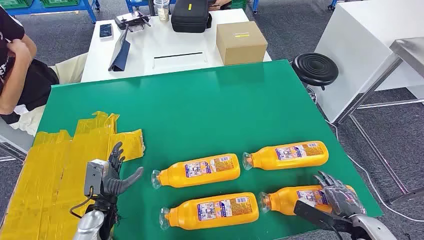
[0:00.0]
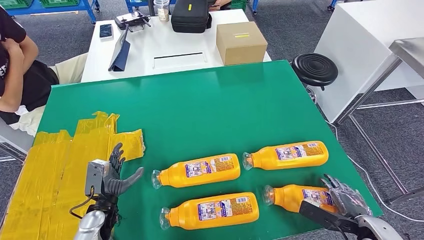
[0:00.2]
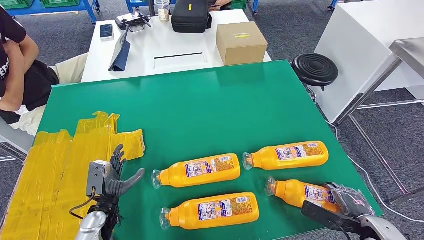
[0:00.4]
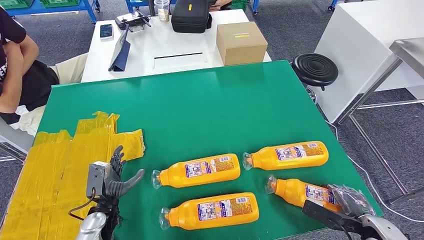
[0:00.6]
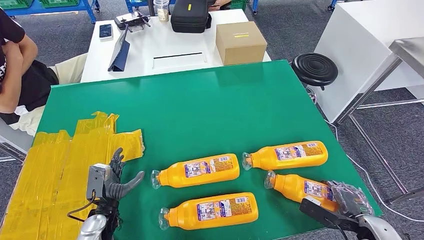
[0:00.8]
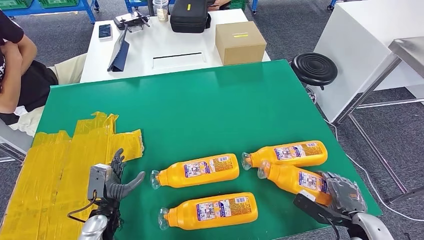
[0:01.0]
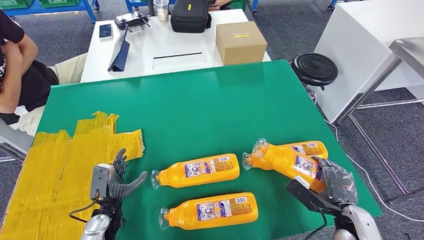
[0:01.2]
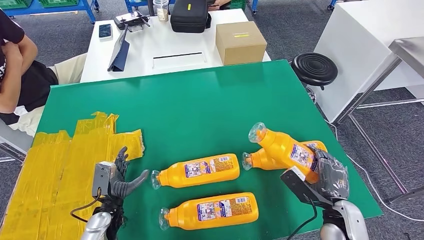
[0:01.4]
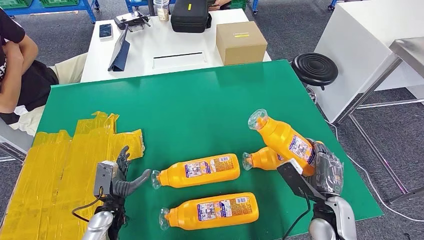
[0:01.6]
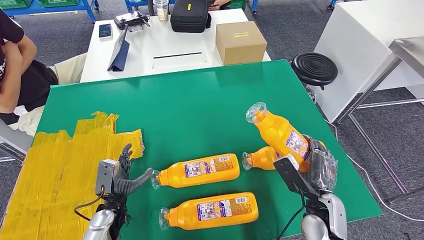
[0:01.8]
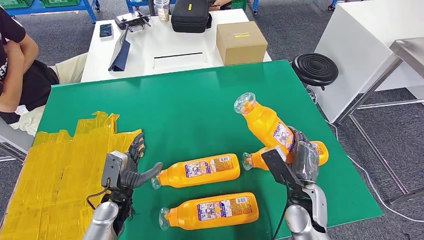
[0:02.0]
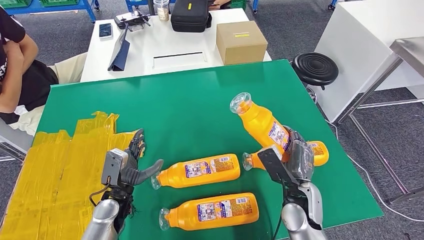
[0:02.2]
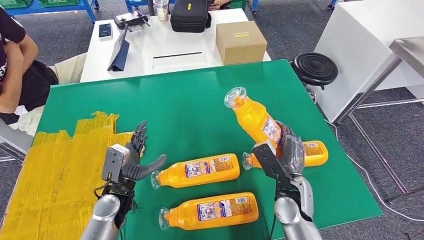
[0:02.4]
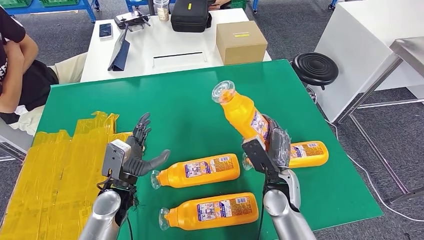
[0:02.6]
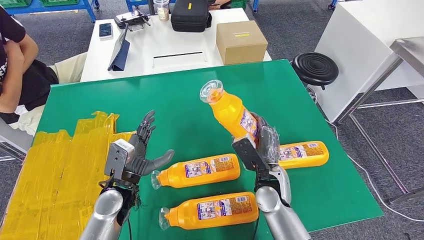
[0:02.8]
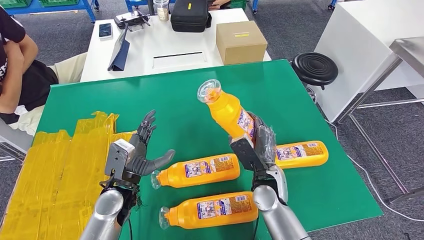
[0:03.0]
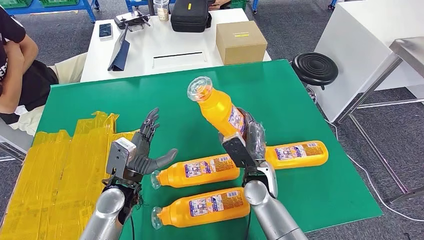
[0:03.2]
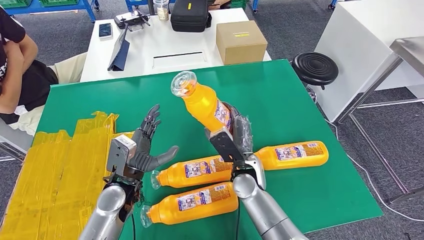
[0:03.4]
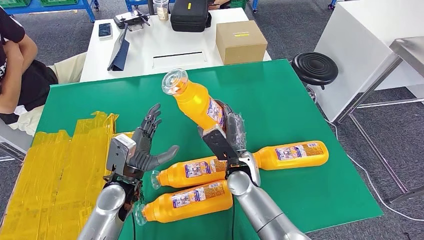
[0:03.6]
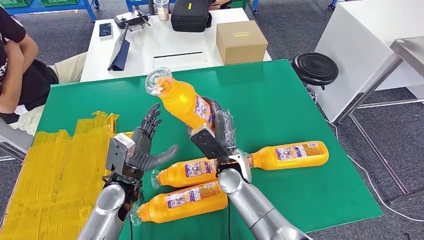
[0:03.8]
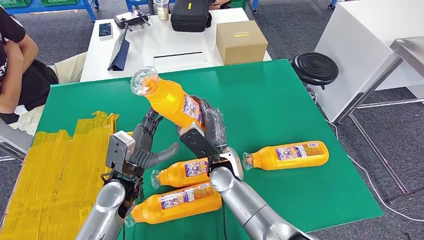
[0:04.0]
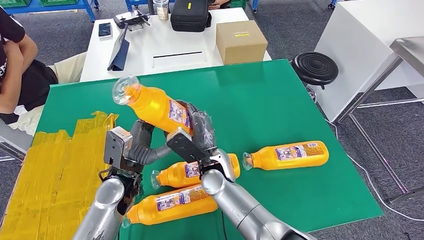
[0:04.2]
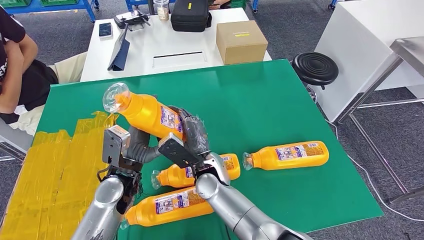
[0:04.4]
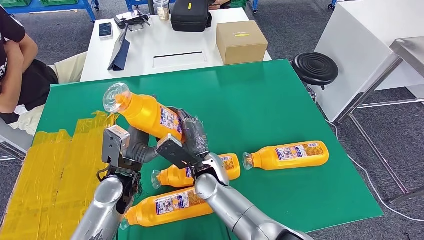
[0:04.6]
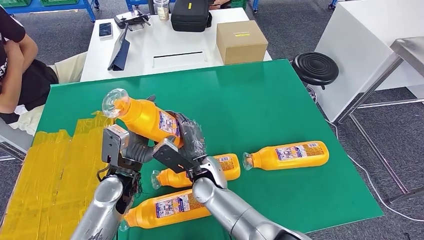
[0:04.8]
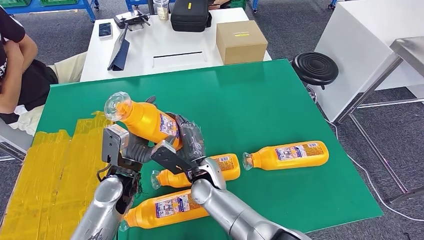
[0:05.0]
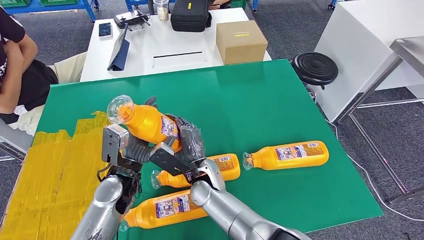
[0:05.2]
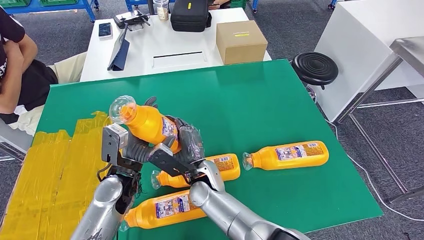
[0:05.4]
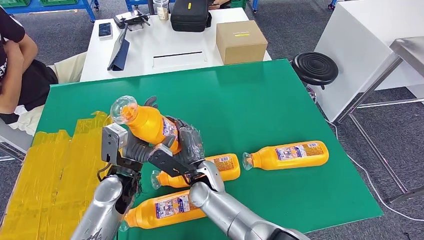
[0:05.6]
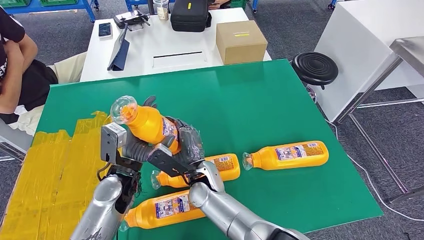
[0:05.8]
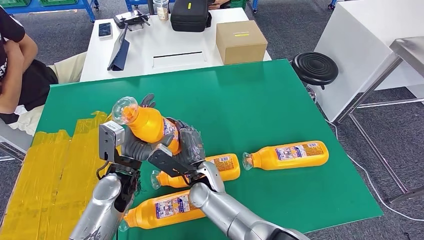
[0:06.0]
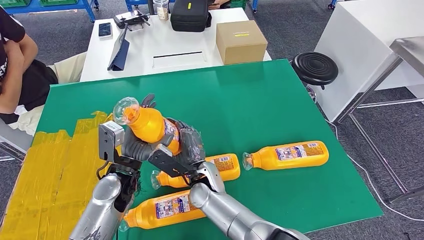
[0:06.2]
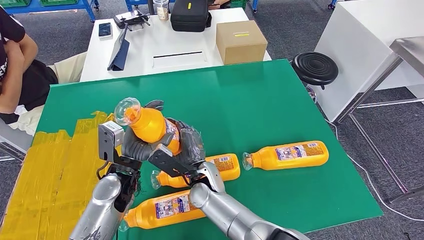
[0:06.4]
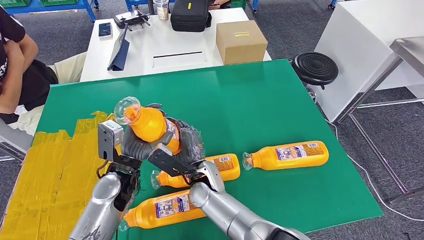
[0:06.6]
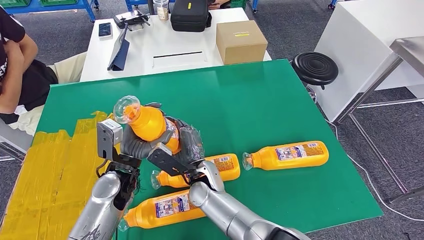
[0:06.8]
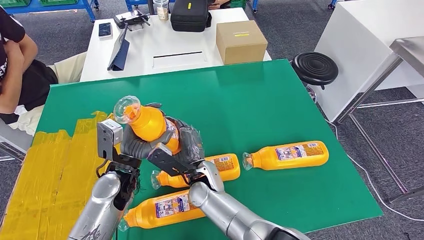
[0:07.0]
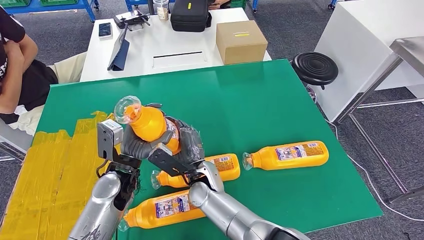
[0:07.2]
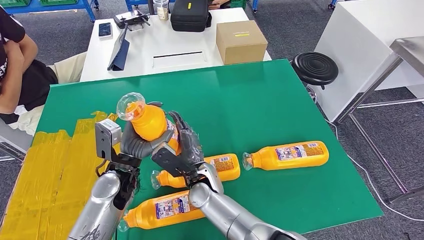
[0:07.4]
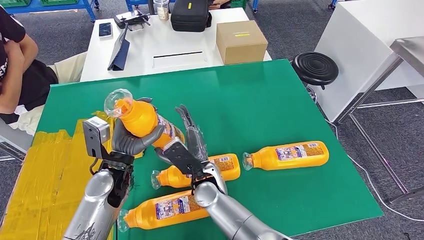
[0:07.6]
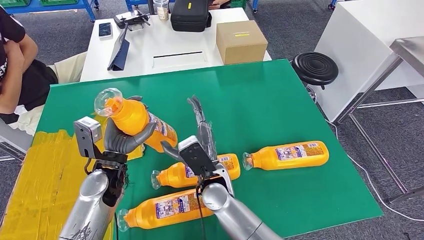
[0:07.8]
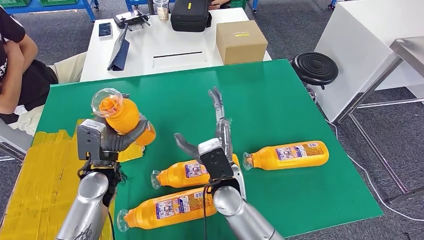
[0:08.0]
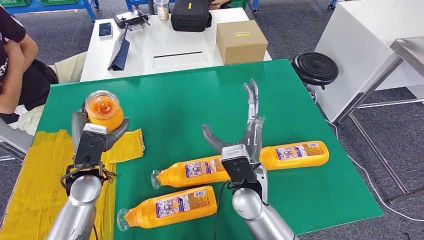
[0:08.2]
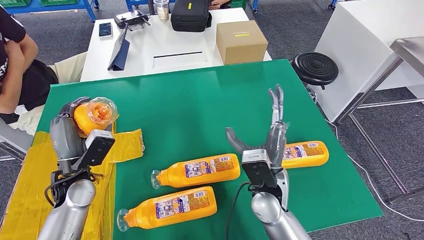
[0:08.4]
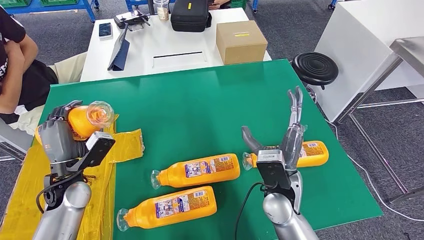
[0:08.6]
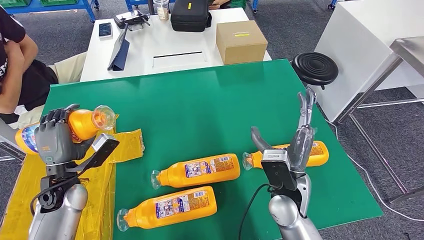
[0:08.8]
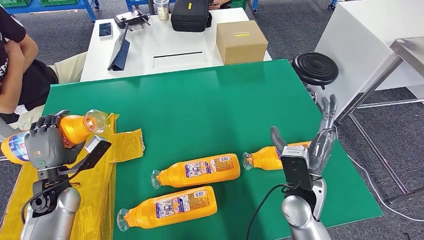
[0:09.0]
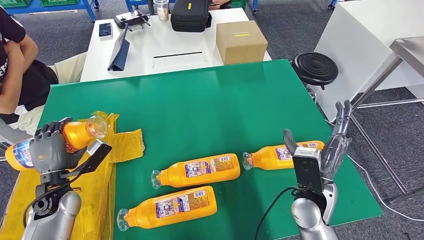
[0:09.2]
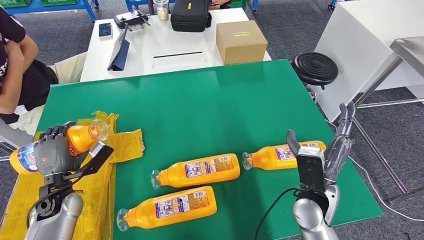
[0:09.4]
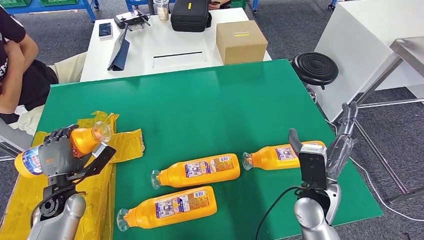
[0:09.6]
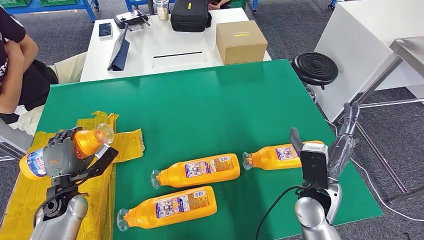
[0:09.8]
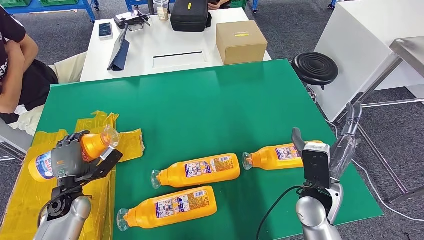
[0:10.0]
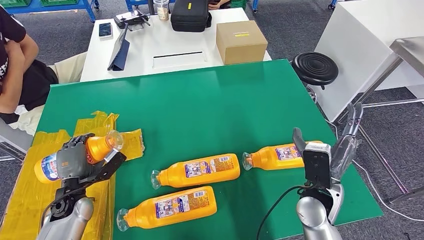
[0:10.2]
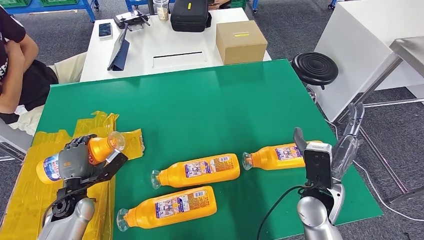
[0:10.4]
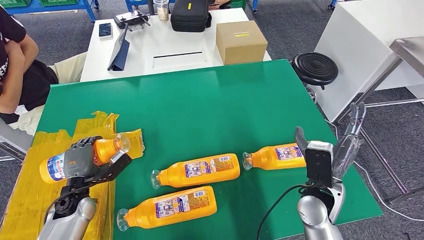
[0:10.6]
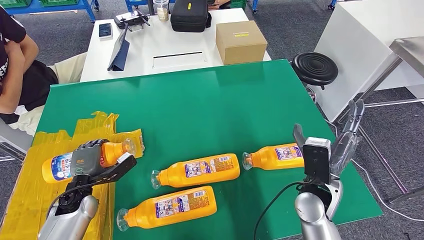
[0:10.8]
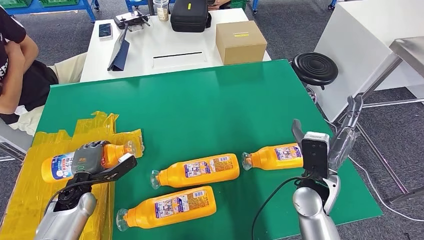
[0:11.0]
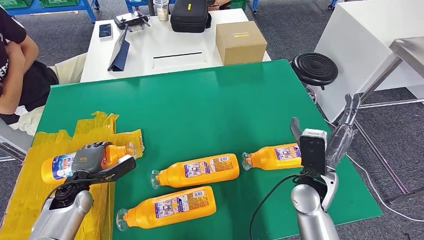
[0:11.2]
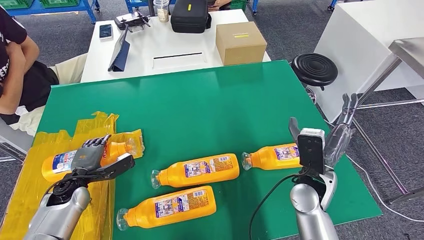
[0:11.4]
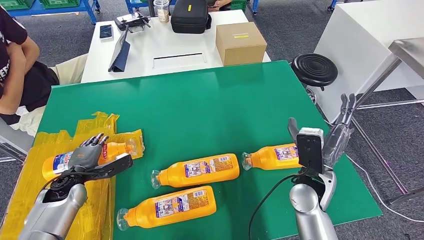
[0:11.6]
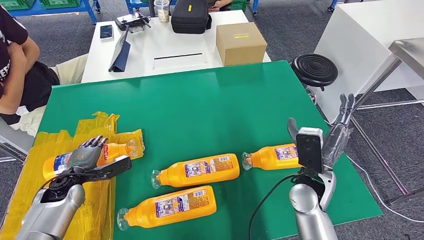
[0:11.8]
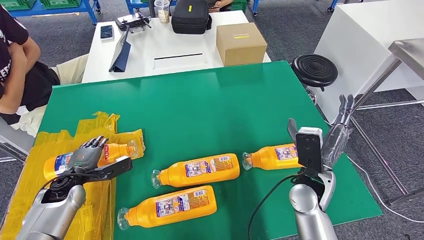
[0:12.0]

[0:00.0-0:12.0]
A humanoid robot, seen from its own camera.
Step, 0:00.0 to 0:06.8: Take the fast-moving consumer goods bottle from the table.
0:01.6 to 0:03.0: The right hand moves to the left and forward, roughly 15 cm, while the left hand is displaced upward and to the right by roughly 10 cm.
0:03.0 to 0:04.4: The right hand moves to the left, approximately 15 cm.
0:04.4 to 0:07.6: The hands move only a little.
0:09.0 to 0:10.4: The left hand moves downward, about 5 cm.

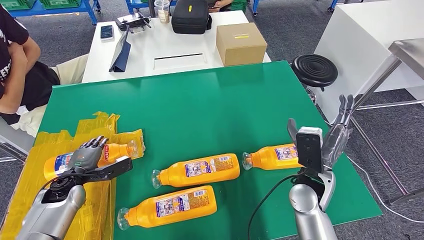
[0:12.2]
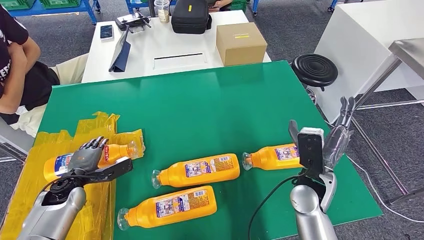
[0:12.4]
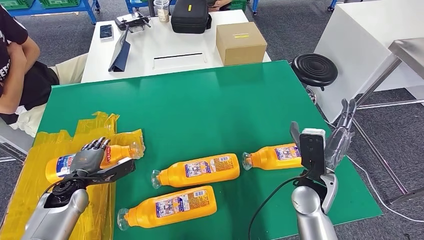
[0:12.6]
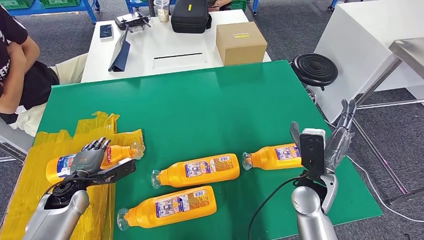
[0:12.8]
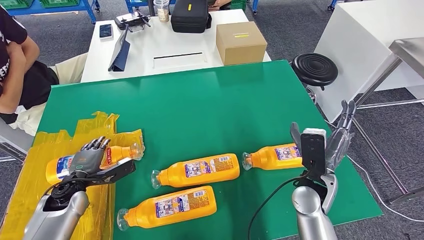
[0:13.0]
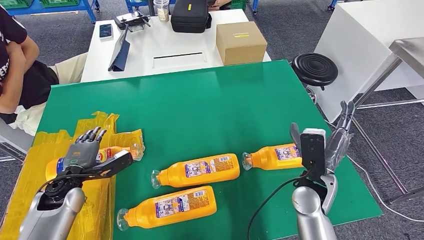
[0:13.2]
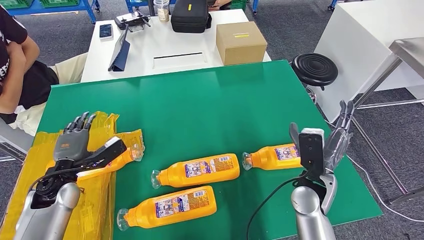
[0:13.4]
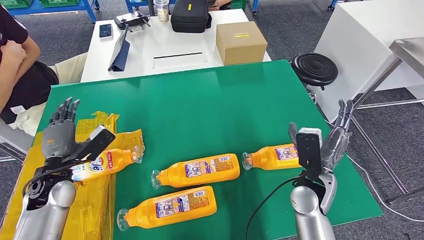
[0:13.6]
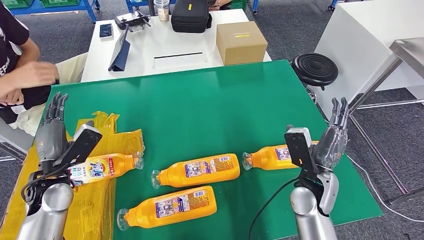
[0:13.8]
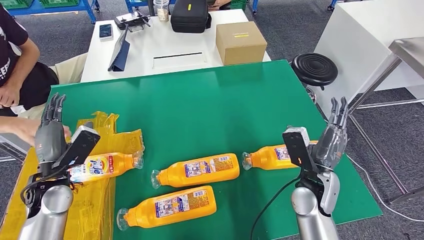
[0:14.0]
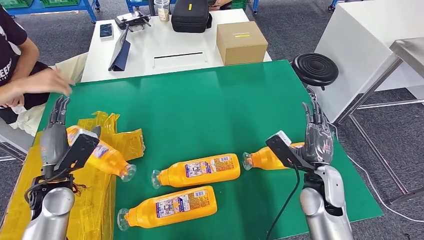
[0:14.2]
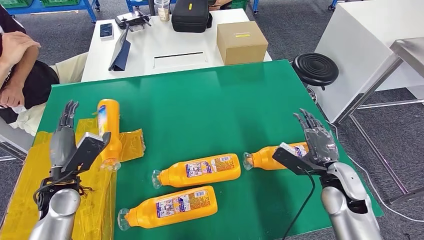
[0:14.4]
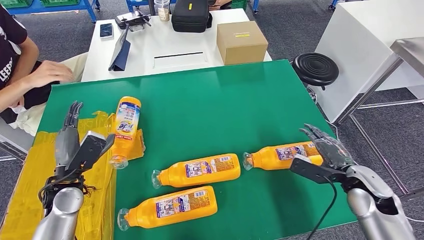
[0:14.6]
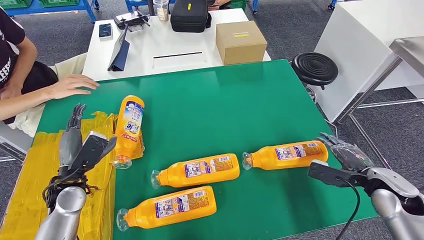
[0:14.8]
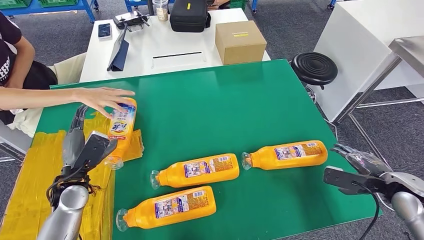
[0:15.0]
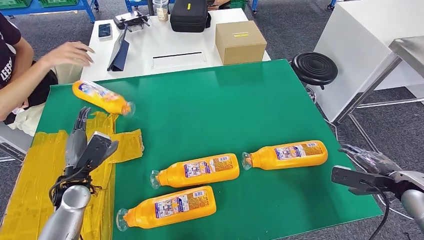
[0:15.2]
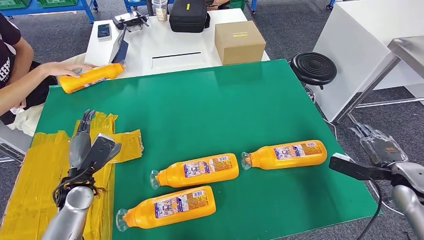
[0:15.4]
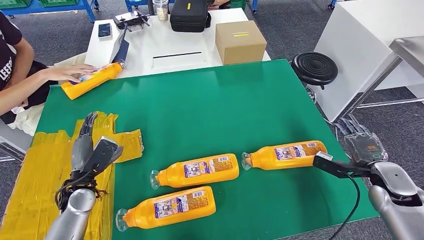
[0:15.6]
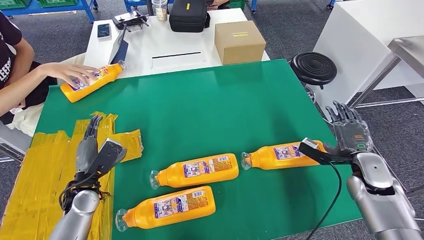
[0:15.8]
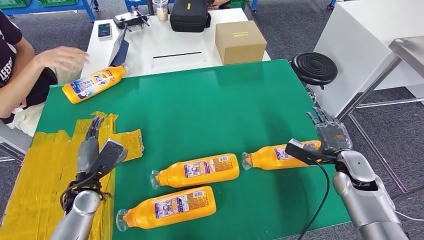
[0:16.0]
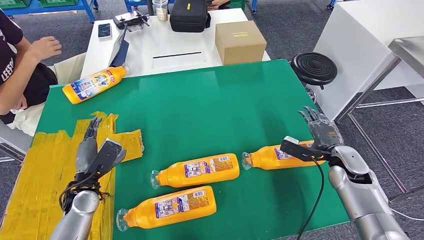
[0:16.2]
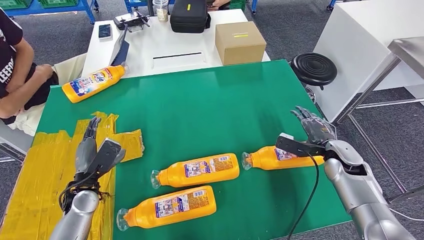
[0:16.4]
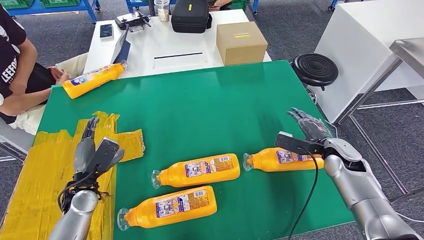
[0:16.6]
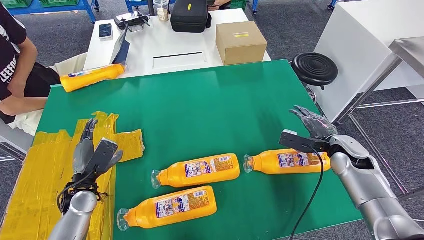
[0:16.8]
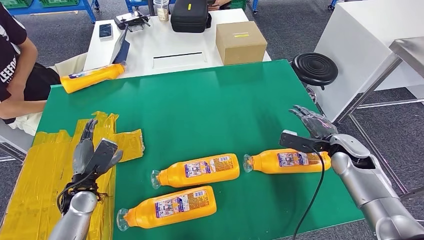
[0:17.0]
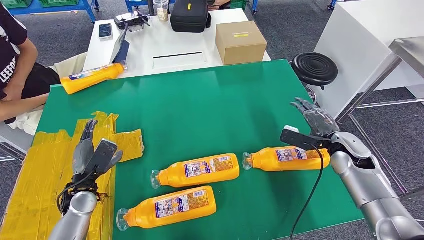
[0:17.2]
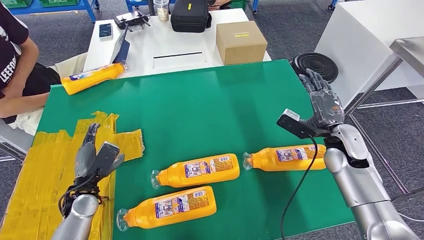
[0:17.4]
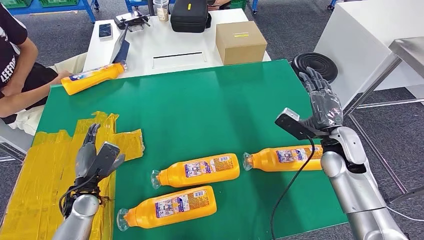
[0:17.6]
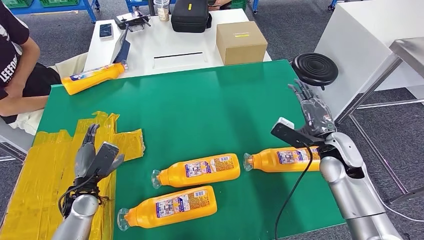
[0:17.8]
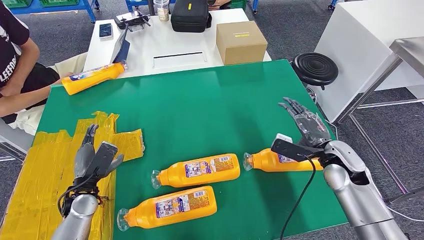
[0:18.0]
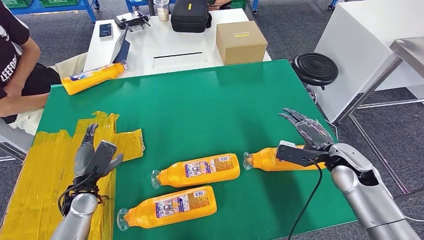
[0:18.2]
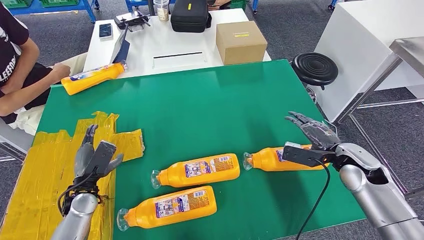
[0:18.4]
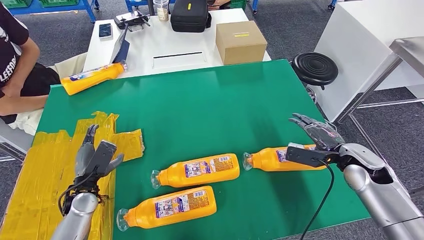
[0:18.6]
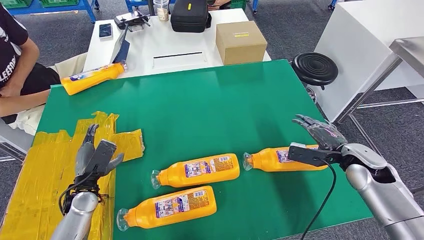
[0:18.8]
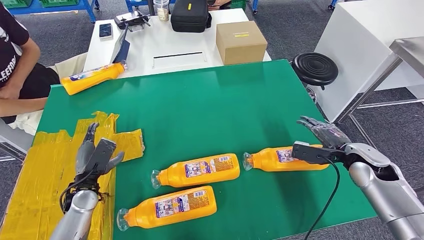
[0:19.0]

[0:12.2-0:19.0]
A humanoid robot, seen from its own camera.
Step, 0:12.2 to 0:14.2: Flip the fast-moving consumer goods bottle to the front side.
0:12.2 to 0:13.6: The left hand moves upward, about 10 cm.
0:15.0 to 0:16.2: The right hand travels forward and to the left by about 10 cm.
0:16.2 to 0:17.6: The right hand goes approximately 10 cm upward and to the left.
0:17.6 to 0:19.0: The right hand shifts some 10 cm to the right.
